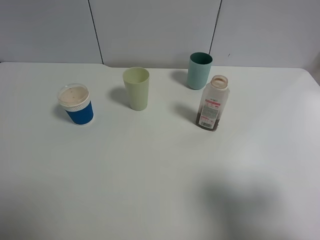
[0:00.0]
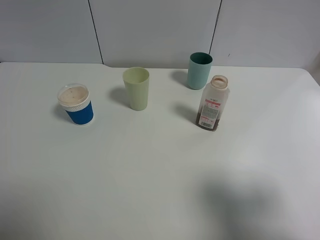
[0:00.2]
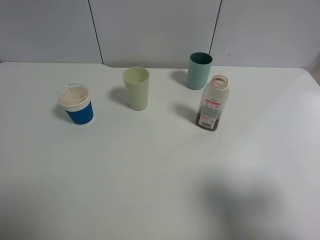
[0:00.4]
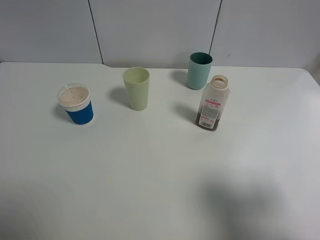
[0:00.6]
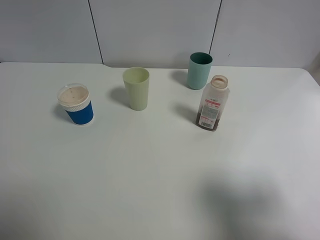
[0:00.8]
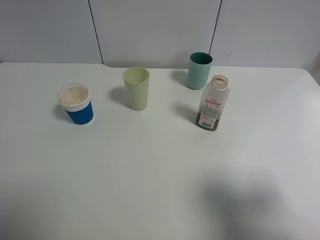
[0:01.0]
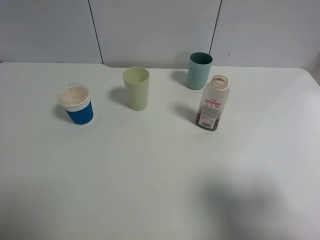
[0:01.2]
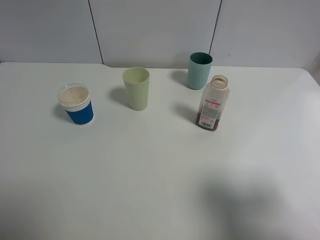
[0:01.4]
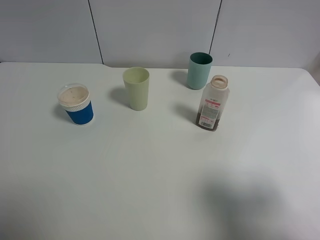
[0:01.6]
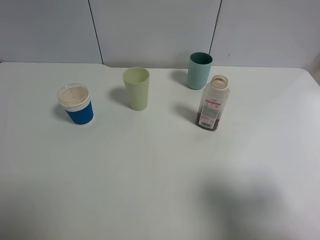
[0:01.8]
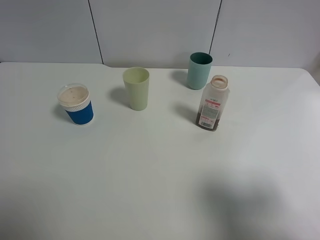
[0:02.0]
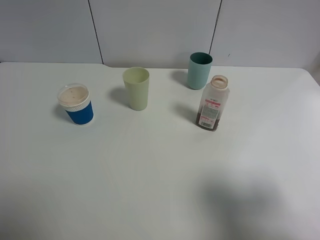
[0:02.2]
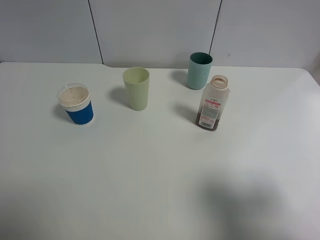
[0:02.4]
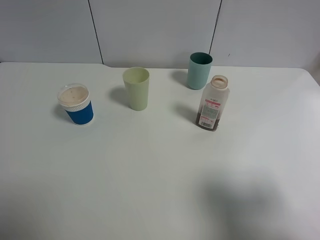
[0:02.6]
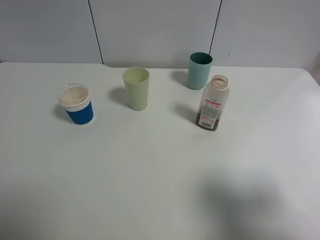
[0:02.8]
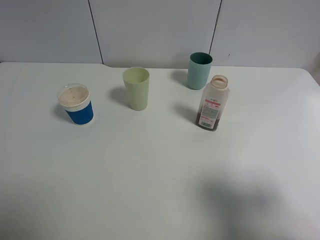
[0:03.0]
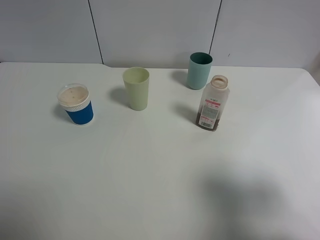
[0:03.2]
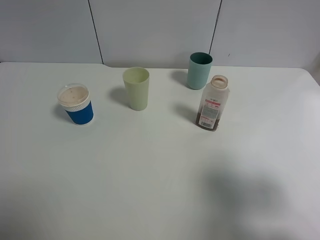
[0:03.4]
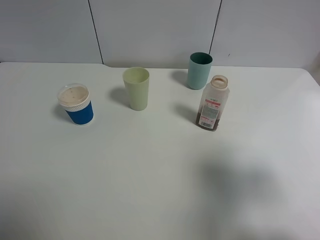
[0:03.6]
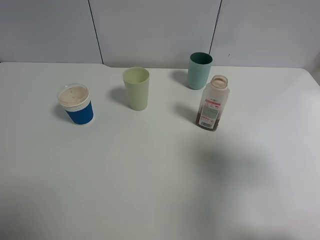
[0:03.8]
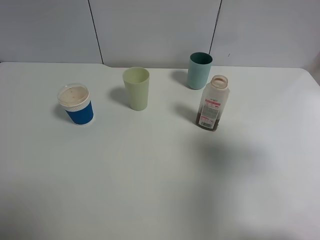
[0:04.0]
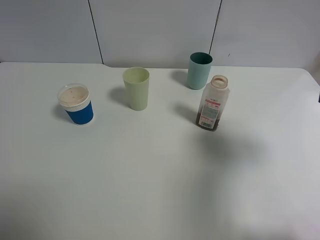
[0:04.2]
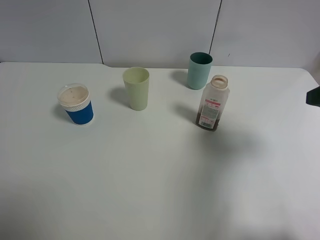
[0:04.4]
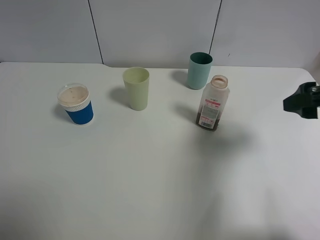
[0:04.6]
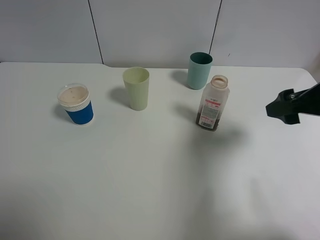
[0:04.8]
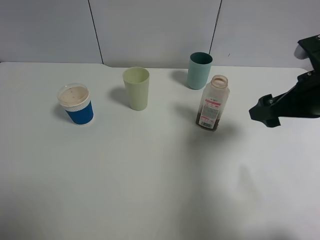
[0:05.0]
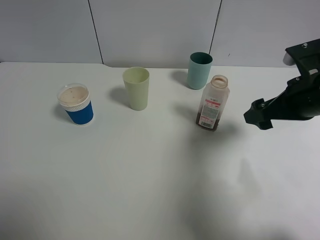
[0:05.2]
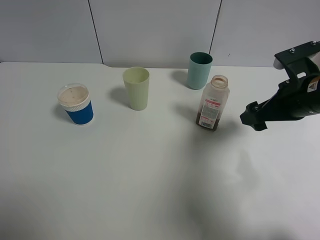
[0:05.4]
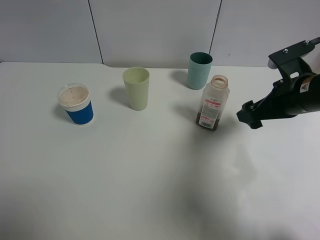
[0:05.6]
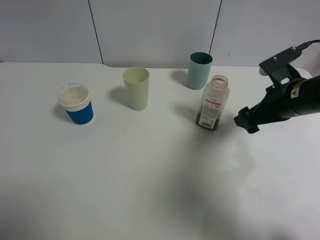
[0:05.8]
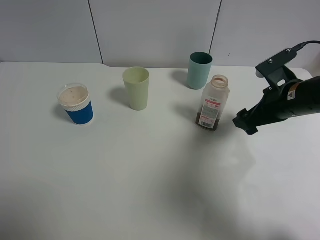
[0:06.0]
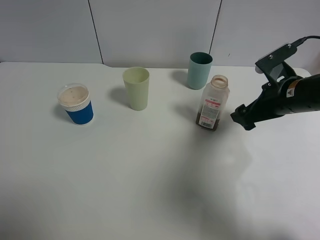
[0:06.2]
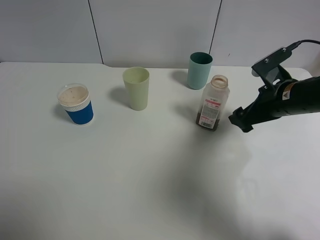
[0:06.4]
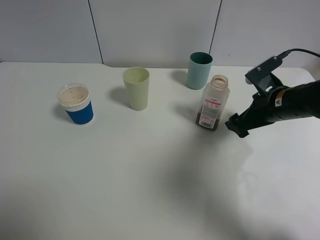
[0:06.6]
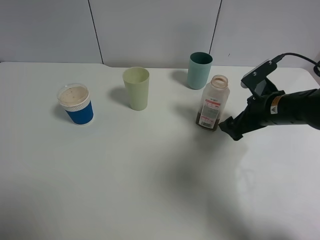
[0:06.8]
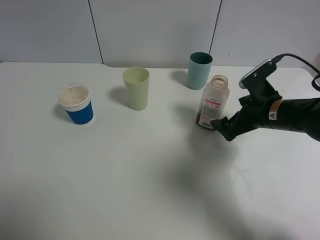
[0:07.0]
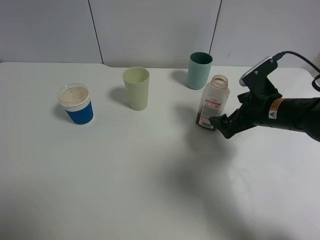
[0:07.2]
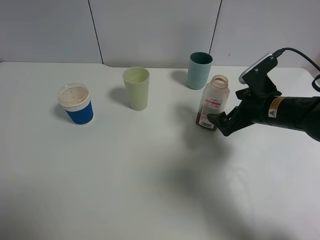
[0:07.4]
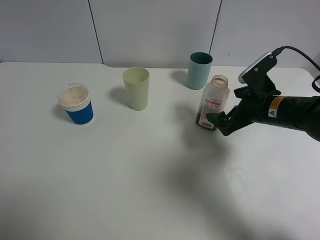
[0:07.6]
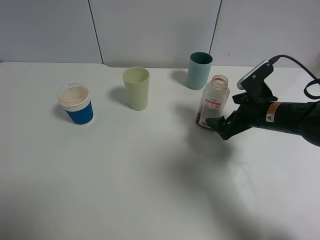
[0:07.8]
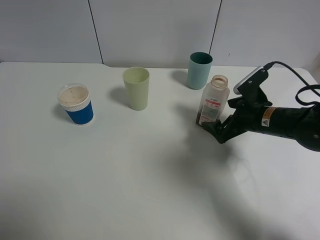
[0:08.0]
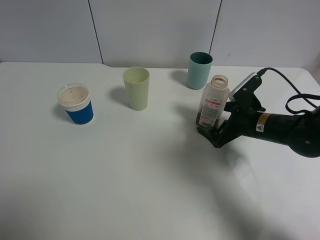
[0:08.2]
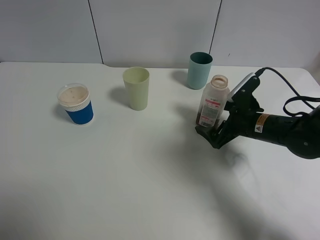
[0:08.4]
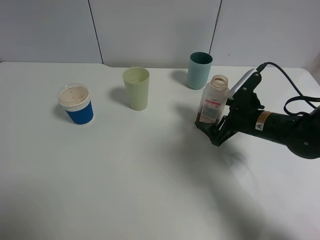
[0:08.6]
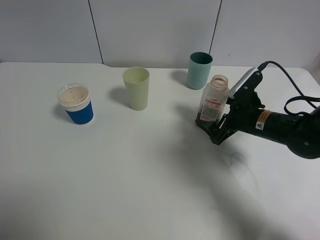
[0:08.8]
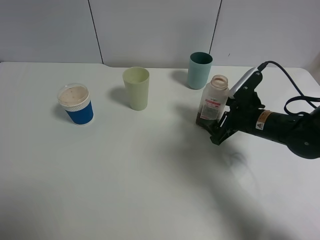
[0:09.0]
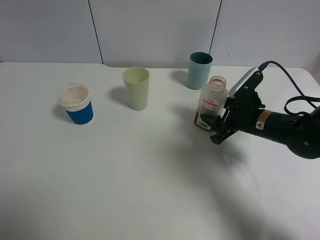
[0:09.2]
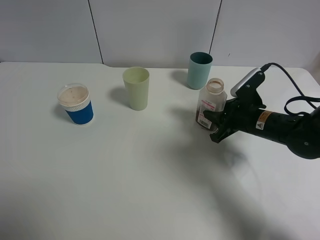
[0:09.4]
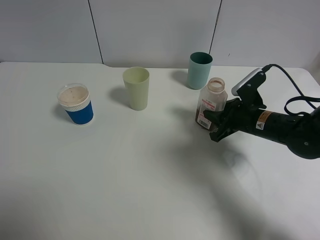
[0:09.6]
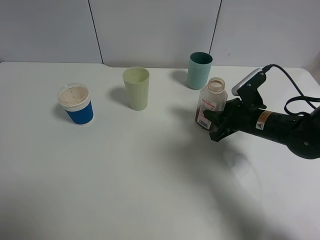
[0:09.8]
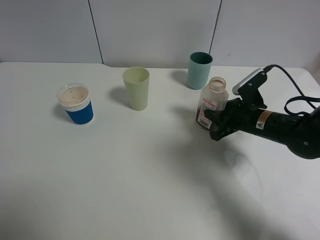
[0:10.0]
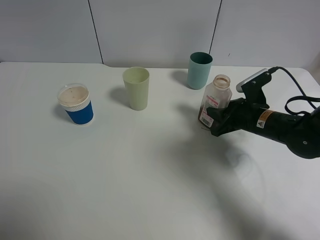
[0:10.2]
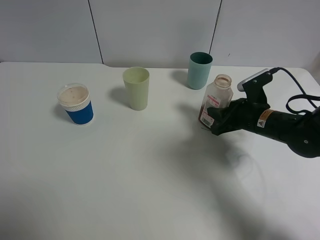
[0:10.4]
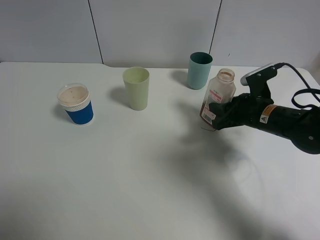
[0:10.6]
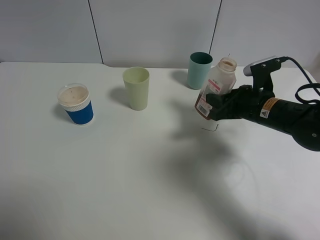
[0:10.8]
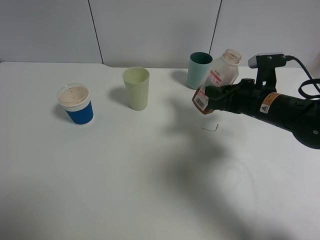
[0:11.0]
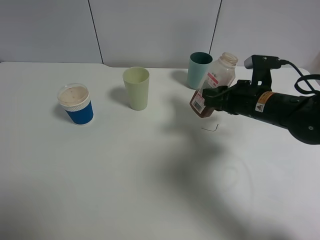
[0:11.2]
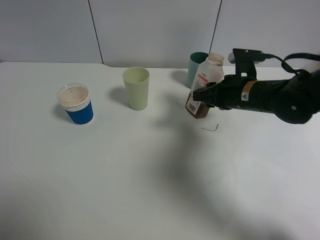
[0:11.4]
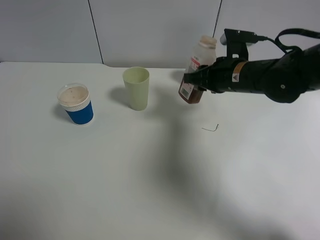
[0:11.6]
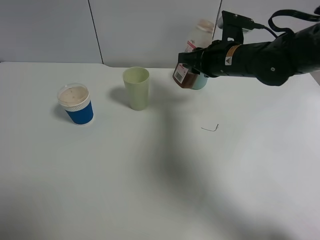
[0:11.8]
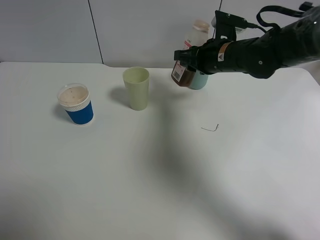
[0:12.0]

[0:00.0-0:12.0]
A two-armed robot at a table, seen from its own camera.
Task of the whole recording: use a gripper to hold the bottle of the drink and pour it into a random cup.
Step, 0:00.0 to 0:09.6: Grasp the cranberry juice bottle with the right gripper.
0:00.0 to 0:01.6: Both grippers stay put.
0:03.0 to 0:04.4: The right gripper shifts about 15 cm forward.
0:04.4 to 0:06.0: The right gripper moves downward, forward and to the left, about 15 cm.
0:07.6 to 0:09.0: The right gripper closes.
0:09.0 to 0:10.4: The right gripper closes.
0:10.4 to 0:12.0: The right gripper travels upward, to the left and forward by some 15 cm.

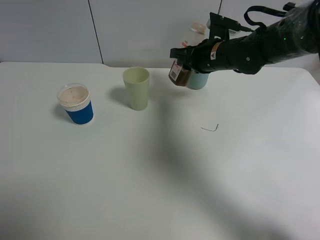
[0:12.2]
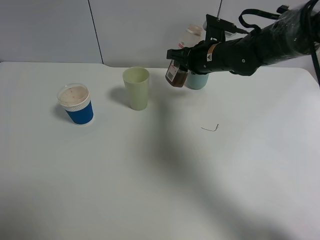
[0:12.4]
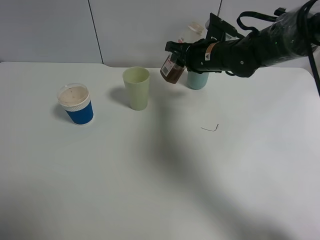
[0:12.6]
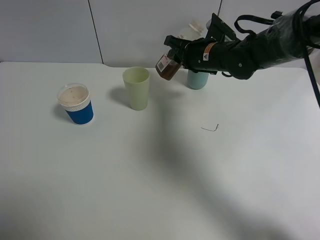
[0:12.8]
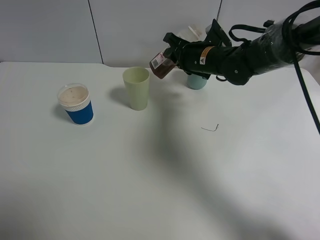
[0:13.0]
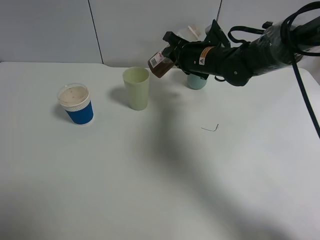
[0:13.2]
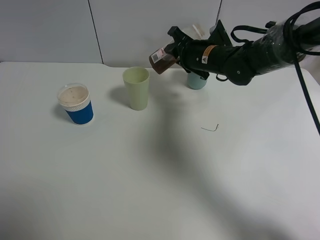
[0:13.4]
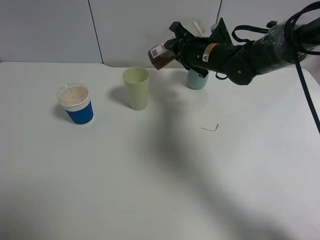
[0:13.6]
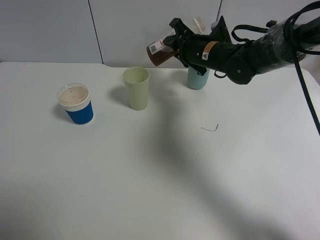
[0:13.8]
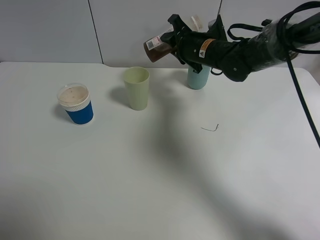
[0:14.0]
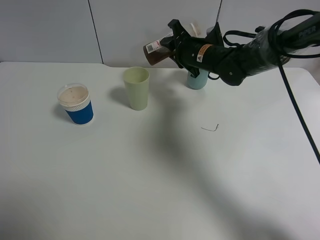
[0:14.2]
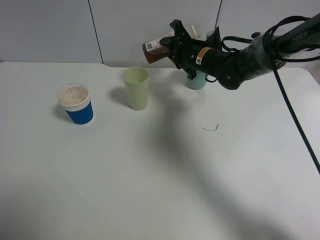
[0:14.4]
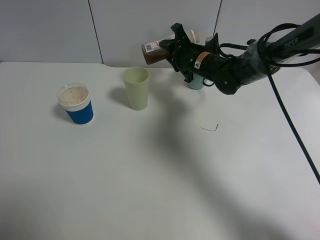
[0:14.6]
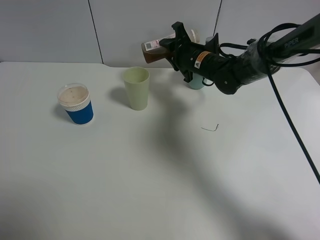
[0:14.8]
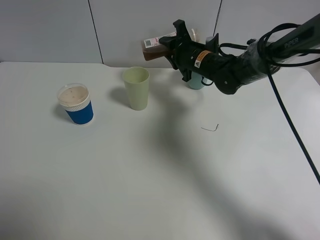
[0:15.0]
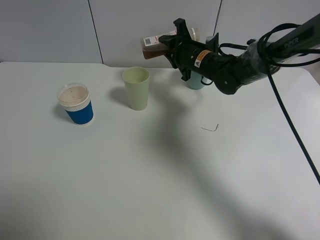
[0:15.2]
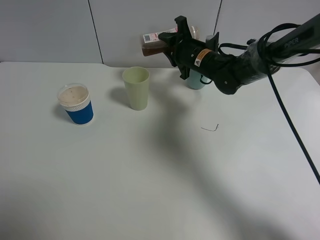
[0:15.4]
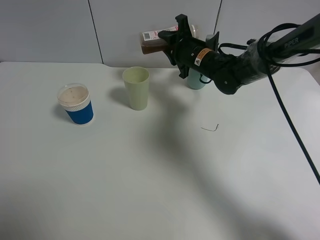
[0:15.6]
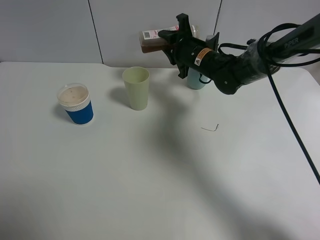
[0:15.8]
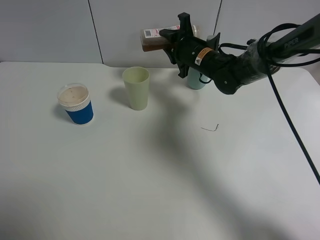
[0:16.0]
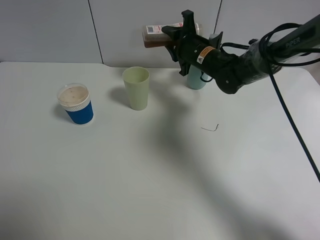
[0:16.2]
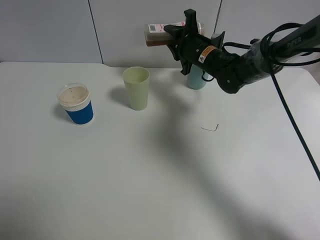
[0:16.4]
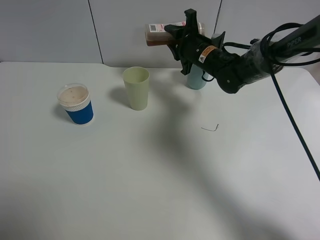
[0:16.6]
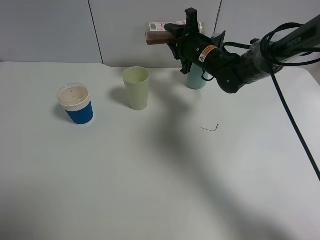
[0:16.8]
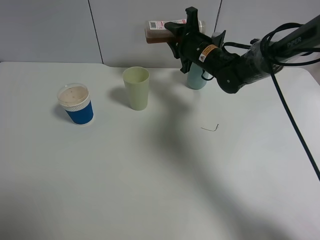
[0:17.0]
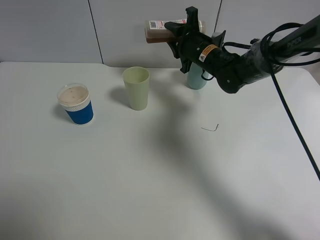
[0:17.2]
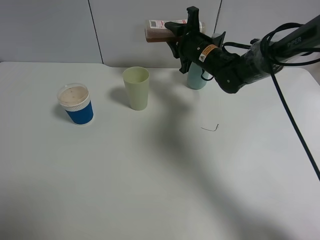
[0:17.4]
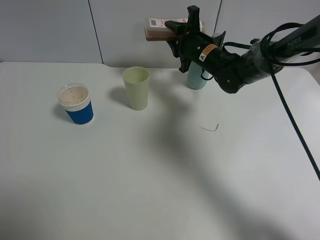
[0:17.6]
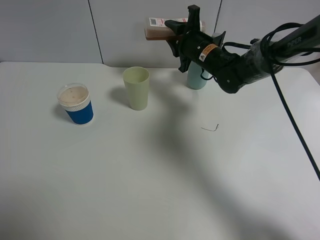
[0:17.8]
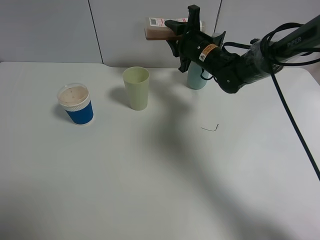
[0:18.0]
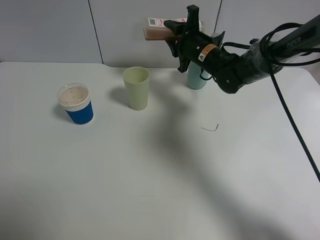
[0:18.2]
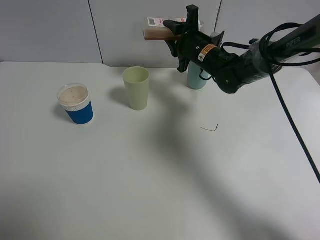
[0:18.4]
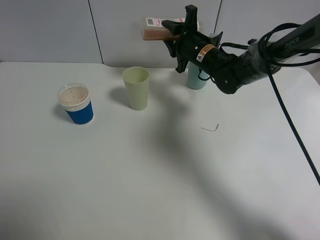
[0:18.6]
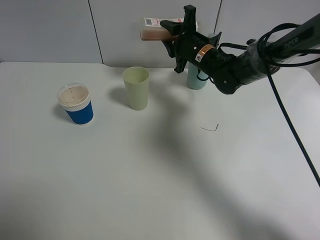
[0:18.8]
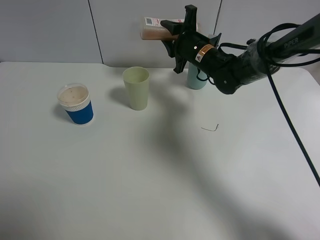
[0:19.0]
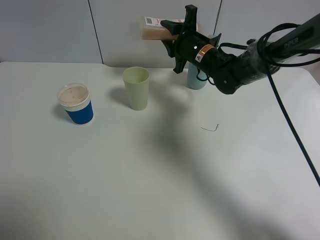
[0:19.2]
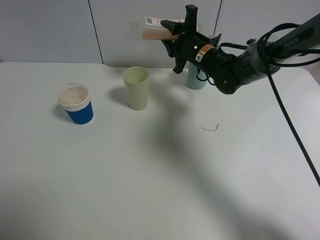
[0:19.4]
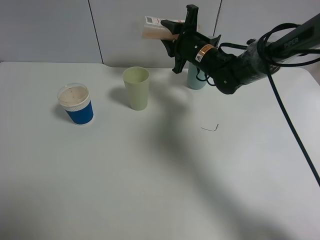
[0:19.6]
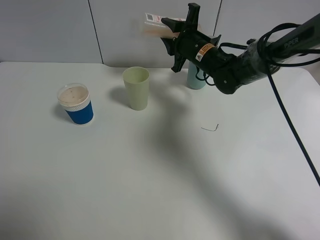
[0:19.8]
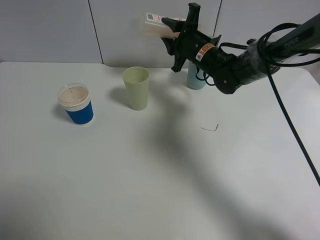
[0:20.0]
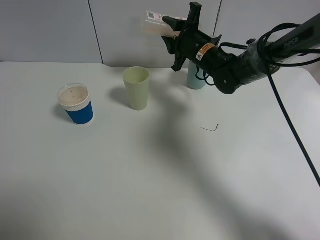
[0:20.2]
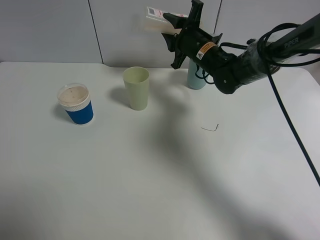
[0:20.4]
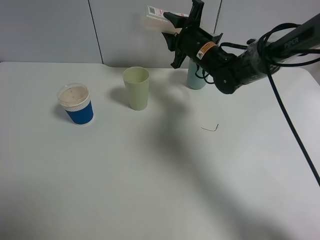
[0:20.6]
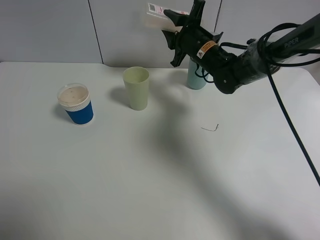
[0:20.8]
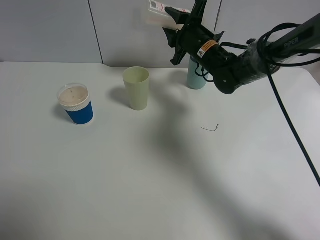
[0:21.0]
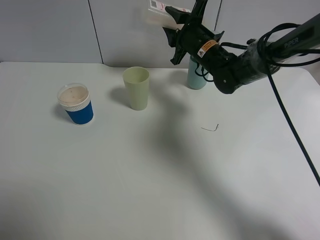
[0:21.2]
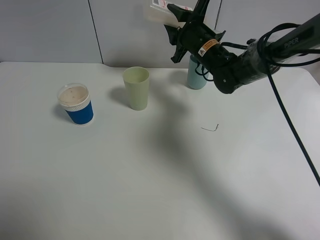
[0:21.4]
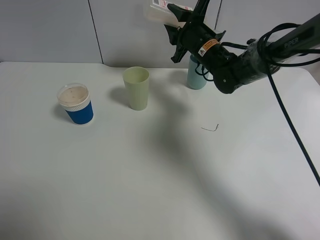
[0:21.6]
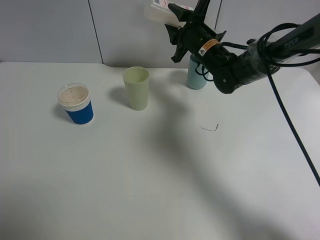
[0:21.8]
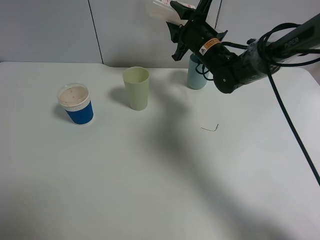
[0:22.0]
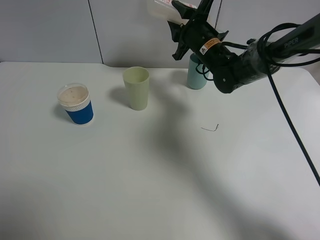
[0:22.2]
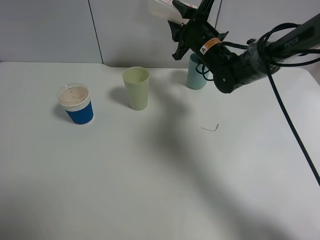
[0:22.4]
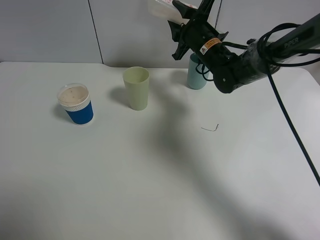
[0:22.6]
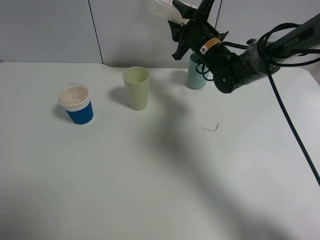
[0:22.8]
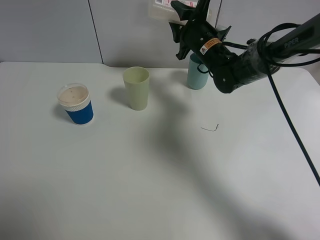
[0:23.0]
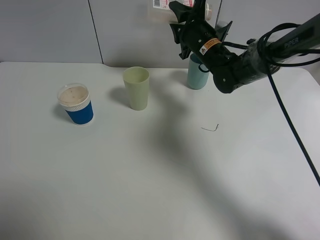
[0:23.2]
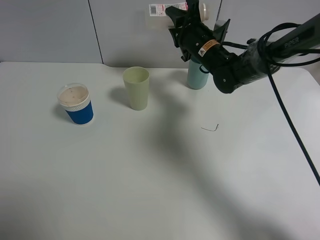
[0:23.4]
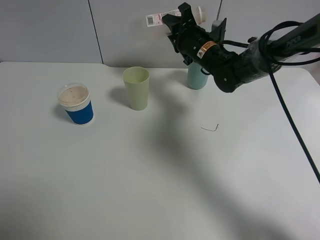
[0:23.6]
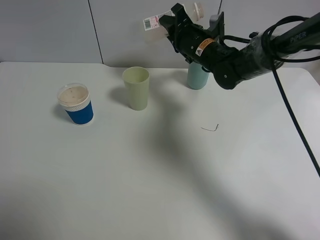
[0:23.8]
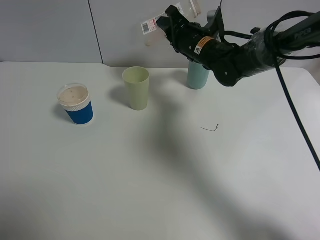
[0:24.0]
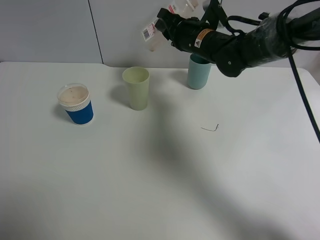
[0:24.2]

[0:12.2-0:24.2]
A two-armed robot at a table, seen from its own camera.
Task of the whole recording: use a gripper to hold the bottle of the drink and pour it into a random cup.
Step, 0:12.2 to 0:23.2: Pour the cranberry juice into the cyan cup with the right gripper.
0:13.8 to 0:15.2: The grippers move only a little.
0:15.2 to 0:16.6: The grippers move only a little.
0:16.6 to 0:18.2: The two grippers keep their place.
0:18.2 to 0:22.6: The grippers move only a little.
